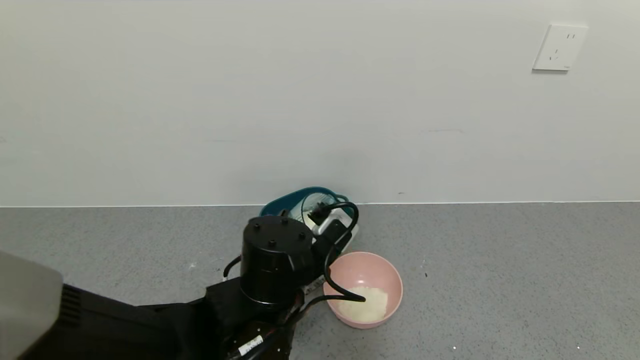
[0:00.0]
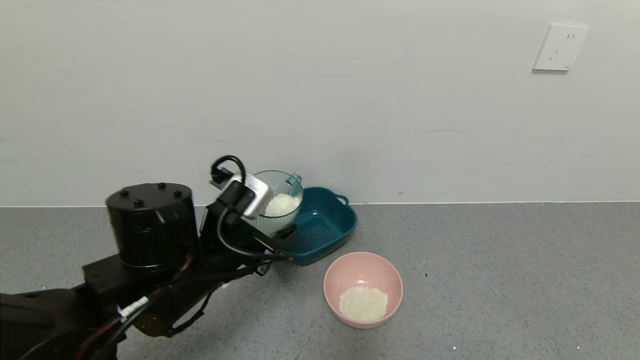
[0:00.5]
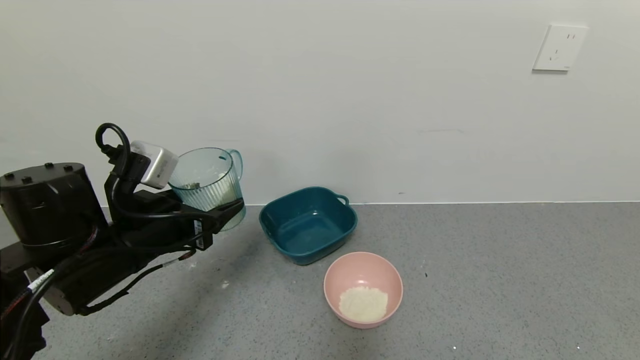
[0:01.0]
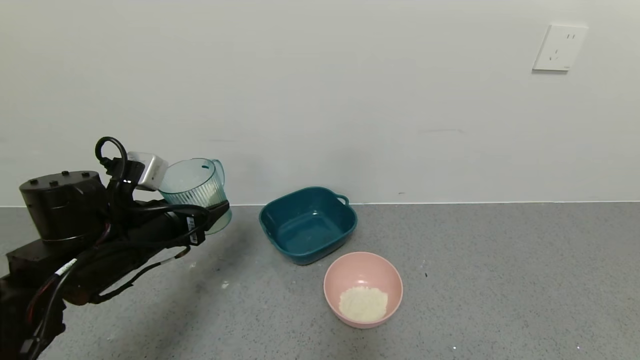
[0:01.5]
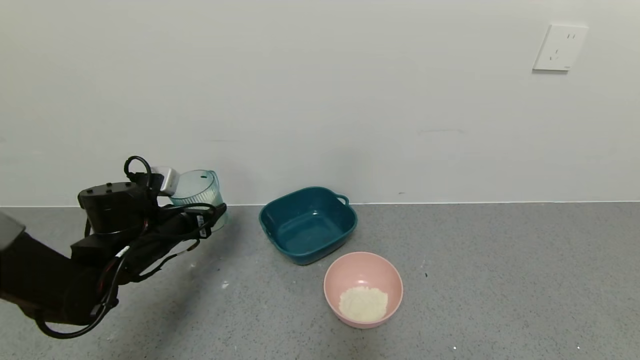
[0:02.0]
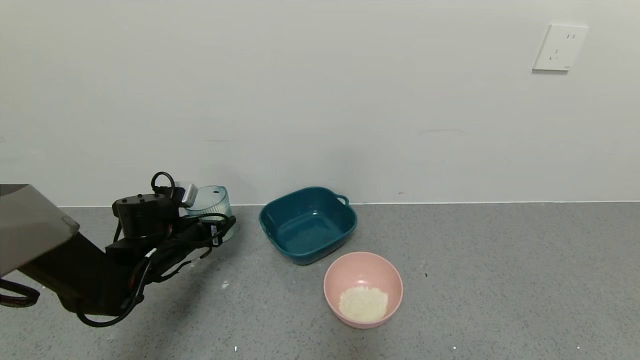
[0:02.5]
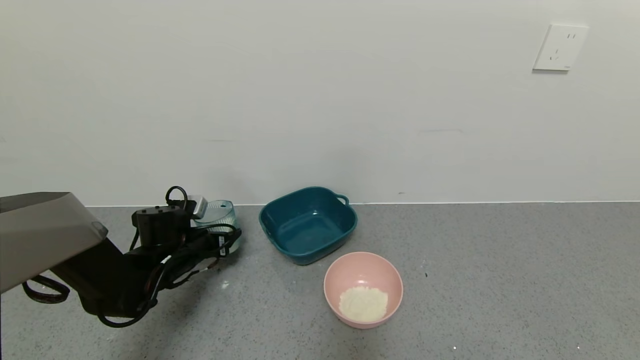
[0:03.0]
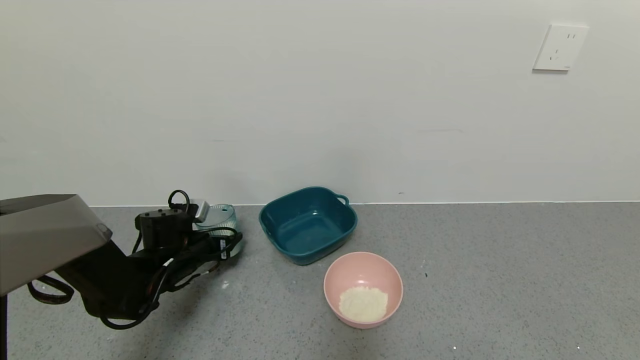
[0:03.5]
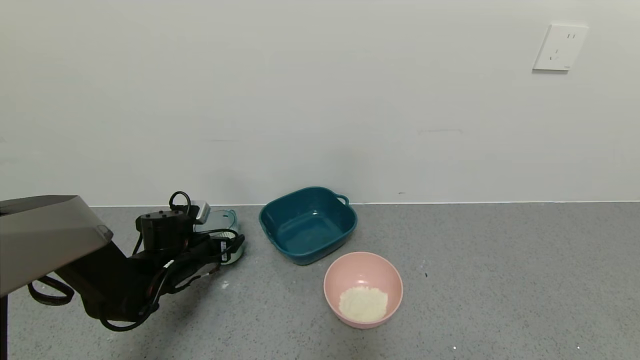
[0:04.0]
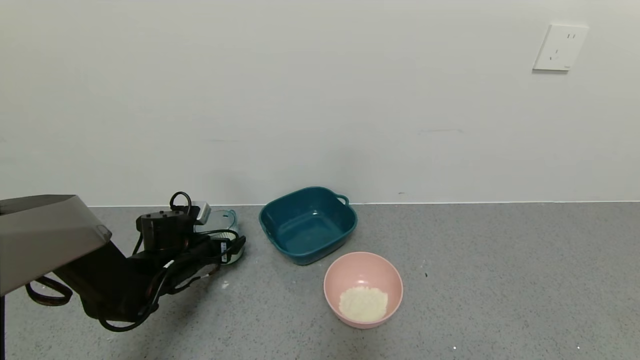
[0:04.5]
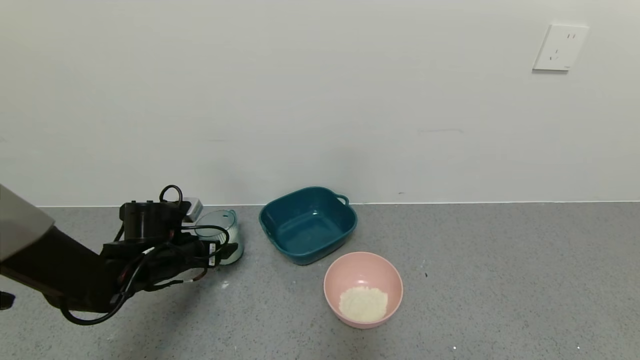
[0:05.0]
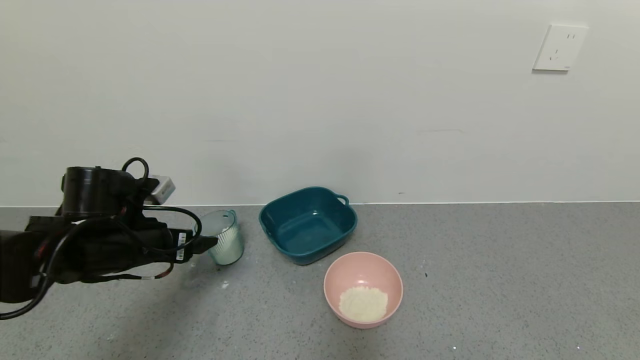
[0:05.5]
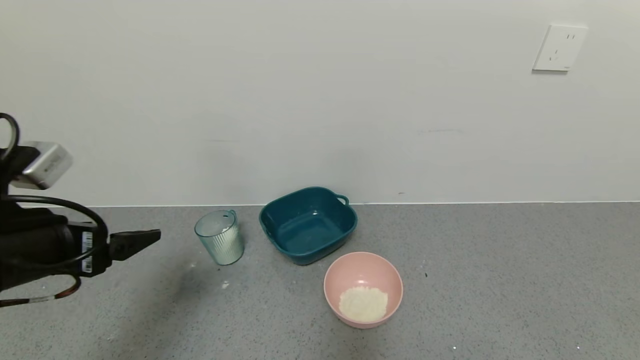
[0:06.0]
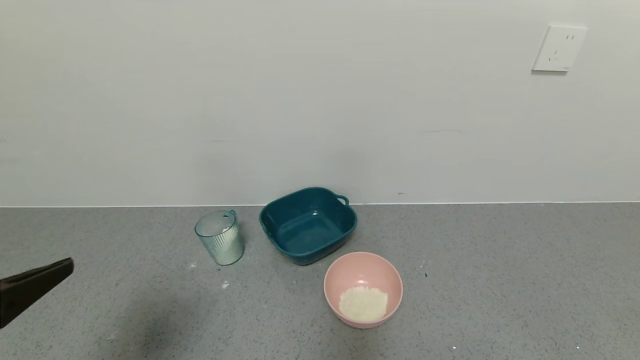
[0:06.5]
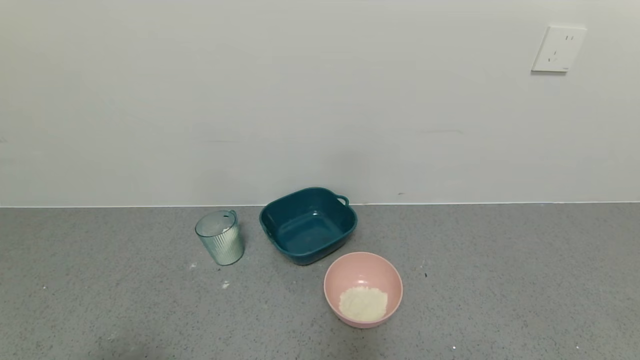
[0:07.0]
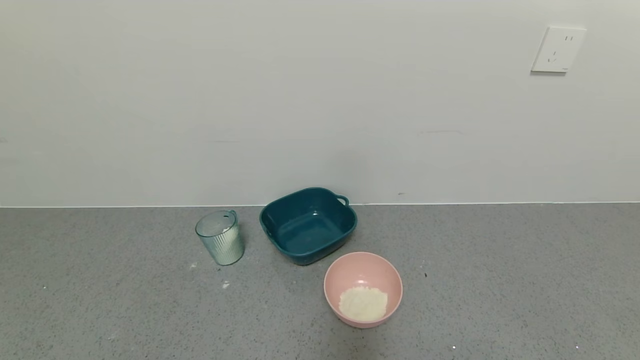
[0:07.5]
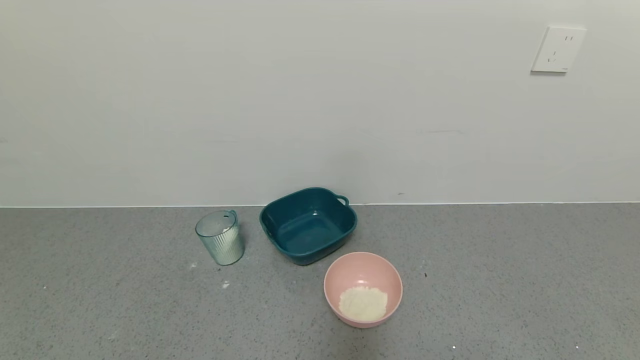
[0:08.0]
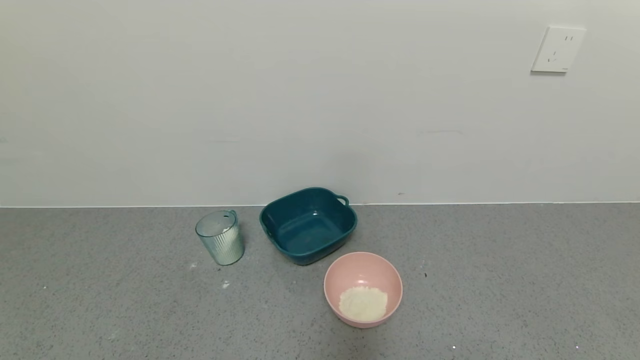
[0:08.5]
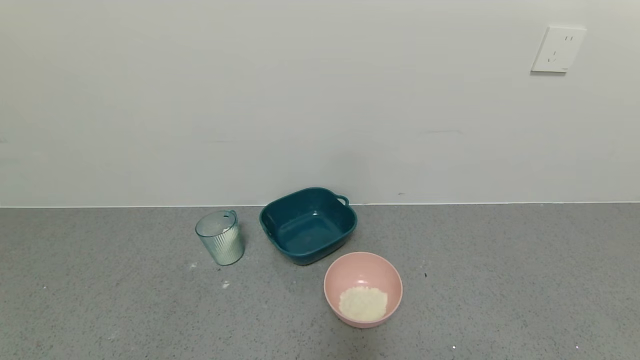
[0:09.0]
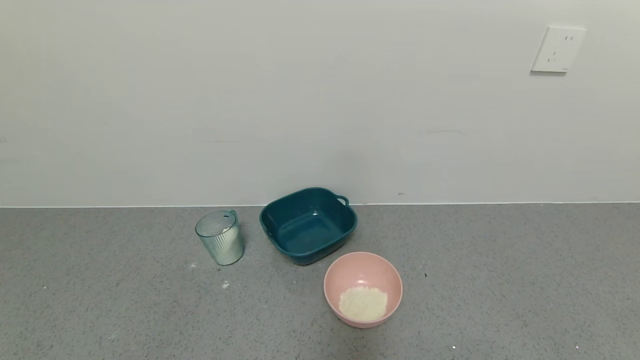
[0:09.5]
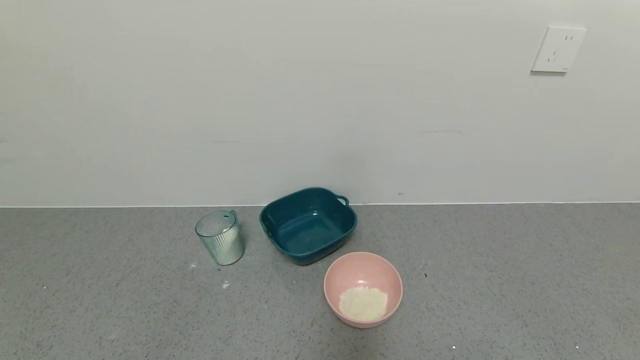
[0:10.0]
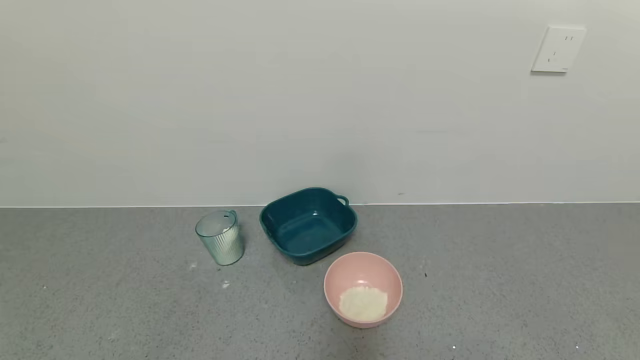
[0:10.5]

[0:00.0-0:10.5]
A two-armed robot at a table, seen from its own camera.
Task of the whole recording: use a gripper to pick up the cup and pour the powder into a bowl or tray.
Step, 0:00.0 to 0:05.0: Place the glass cup down with the left gripper.
0:00.0 to 0:02.0: The left gripper goes about 25 cm to the left and forward.
0:02.0 to 0:04.0: The left gripper travels downward by roughly 10 cm, and opens up.
0:04.0 to 0:06.5: The left gripper heads backward and upward, covering approximately 35 cm, and opens up.
0:06.5 to 0:08.5: The left gripper is displaced backward and downward by roughly 20 cm.
